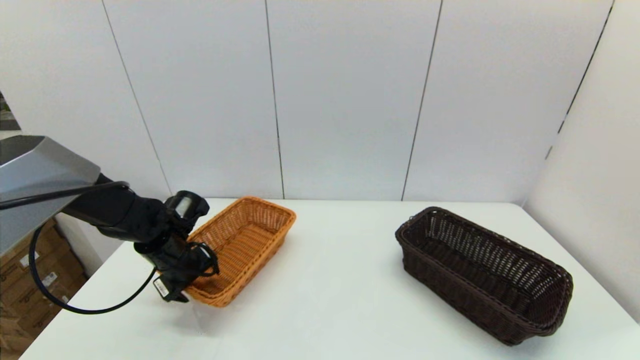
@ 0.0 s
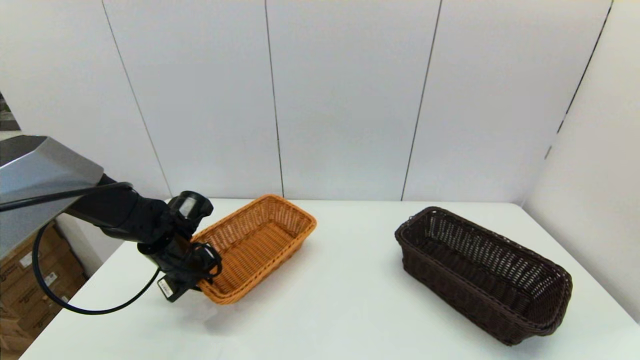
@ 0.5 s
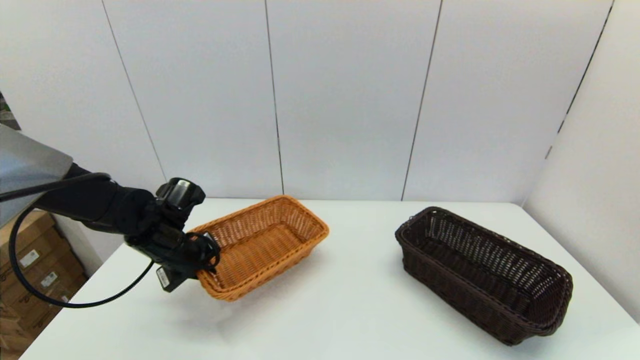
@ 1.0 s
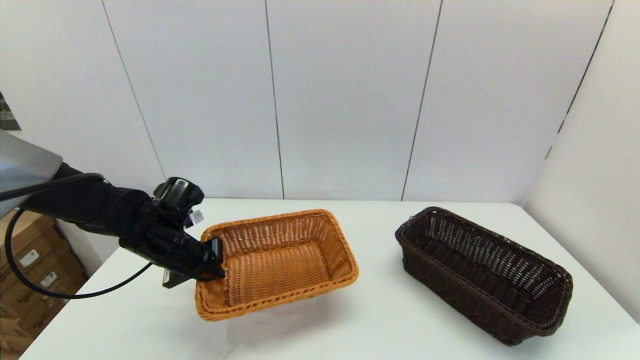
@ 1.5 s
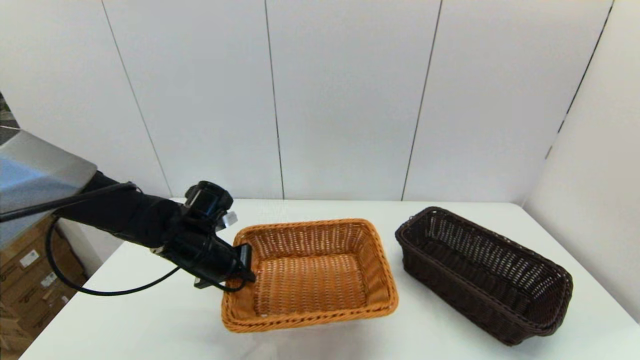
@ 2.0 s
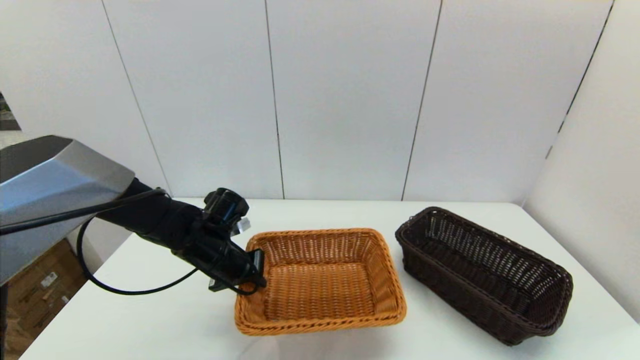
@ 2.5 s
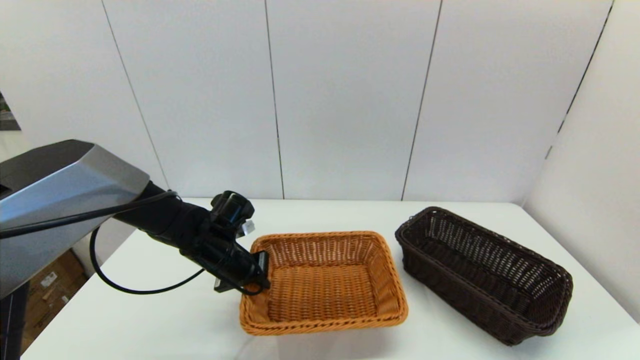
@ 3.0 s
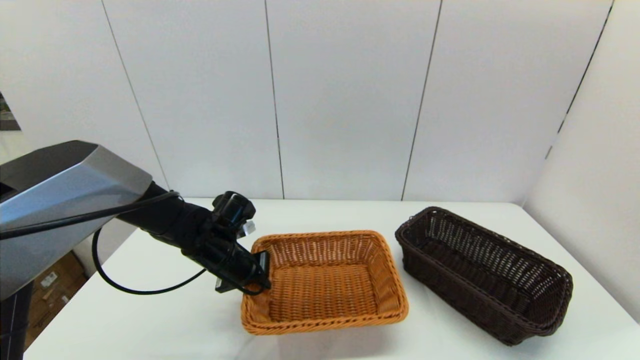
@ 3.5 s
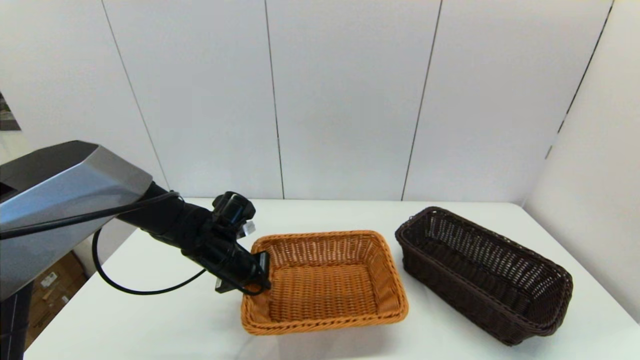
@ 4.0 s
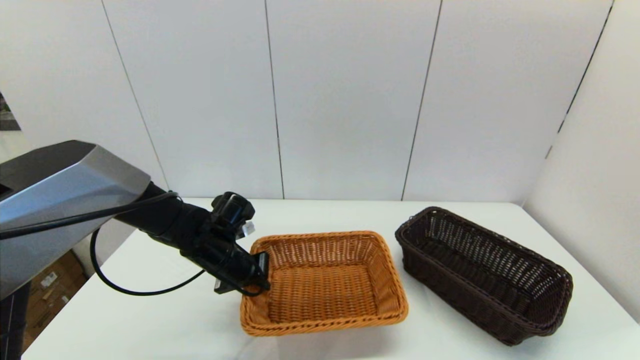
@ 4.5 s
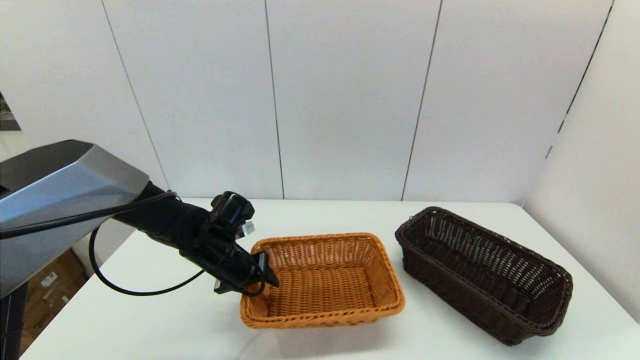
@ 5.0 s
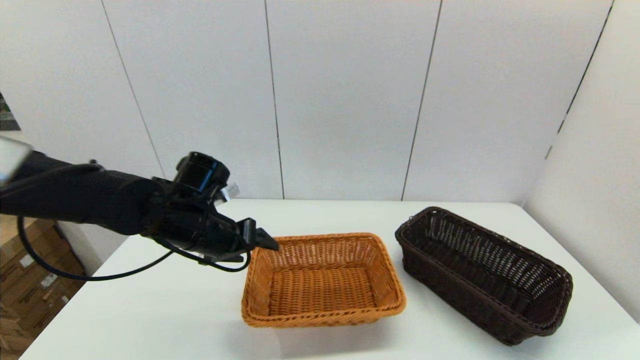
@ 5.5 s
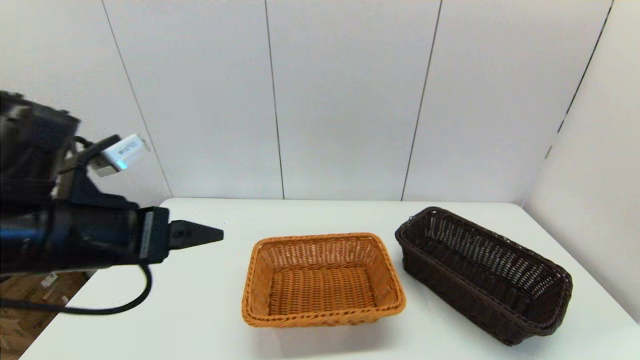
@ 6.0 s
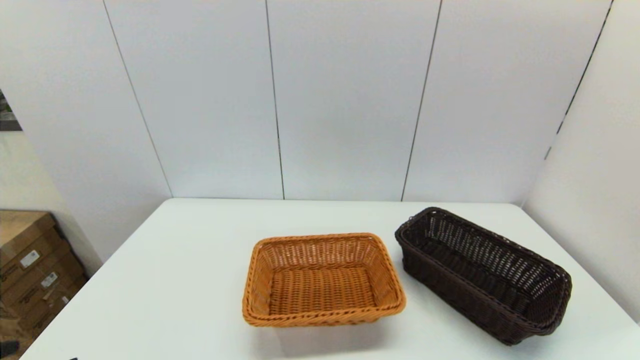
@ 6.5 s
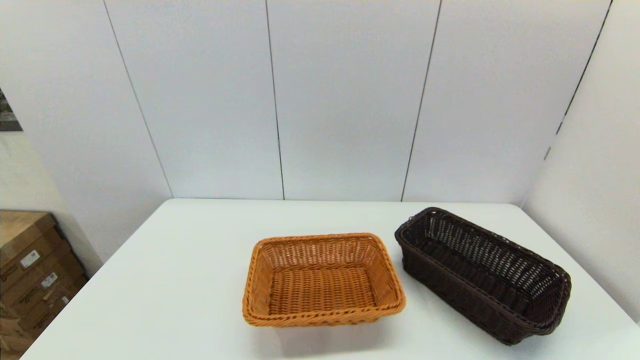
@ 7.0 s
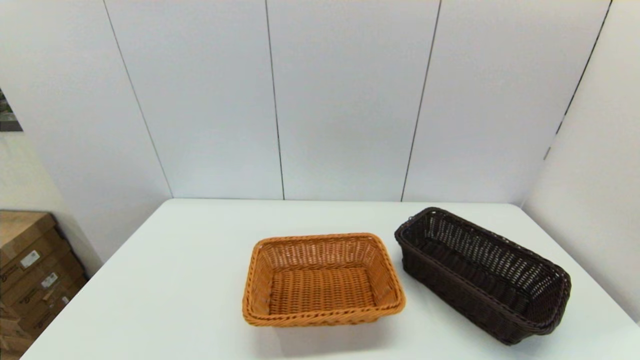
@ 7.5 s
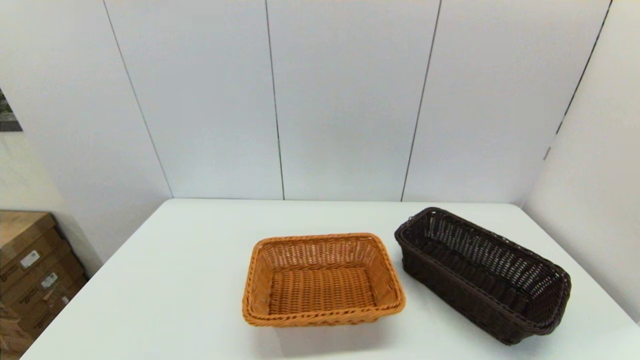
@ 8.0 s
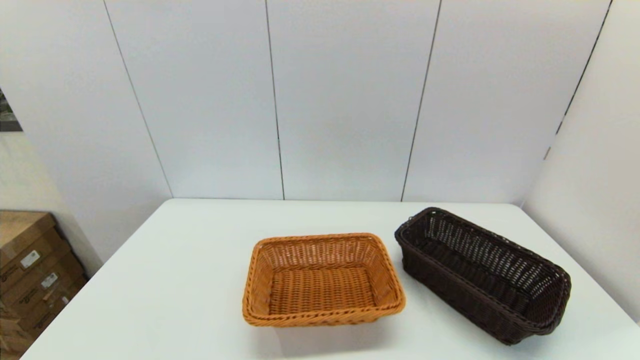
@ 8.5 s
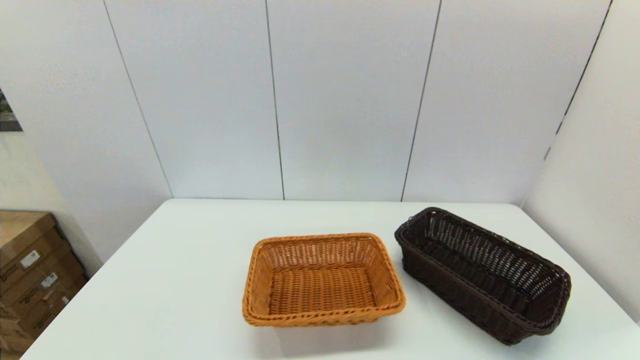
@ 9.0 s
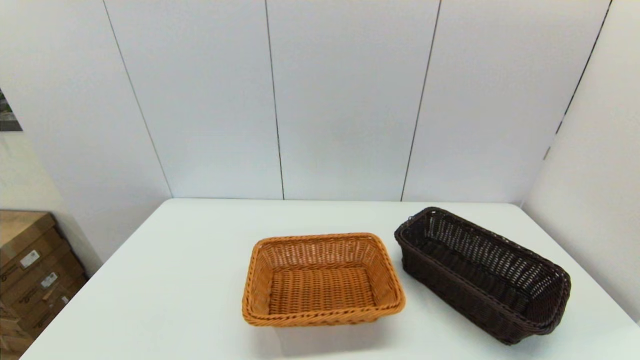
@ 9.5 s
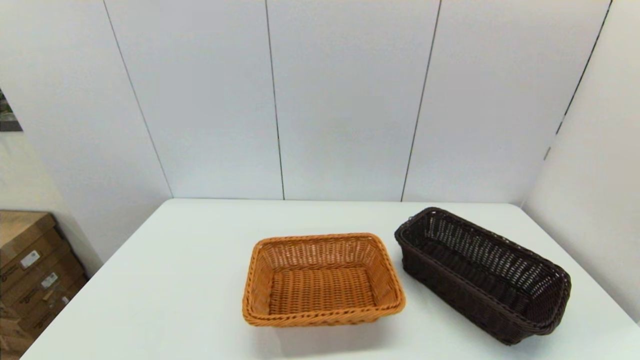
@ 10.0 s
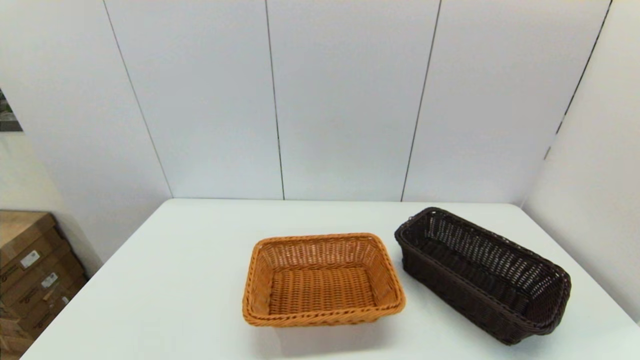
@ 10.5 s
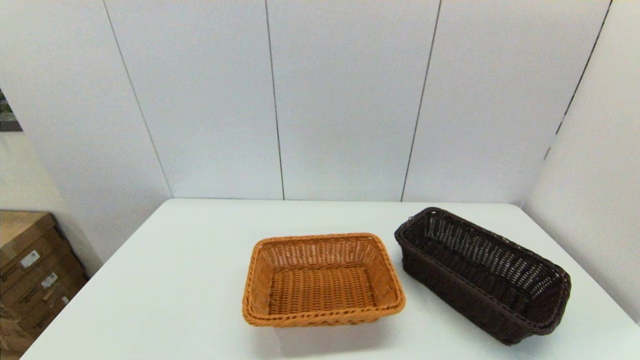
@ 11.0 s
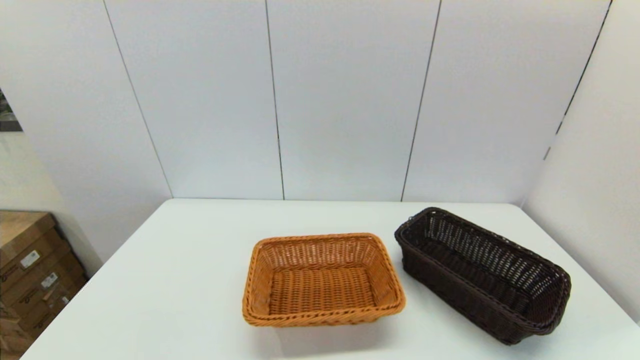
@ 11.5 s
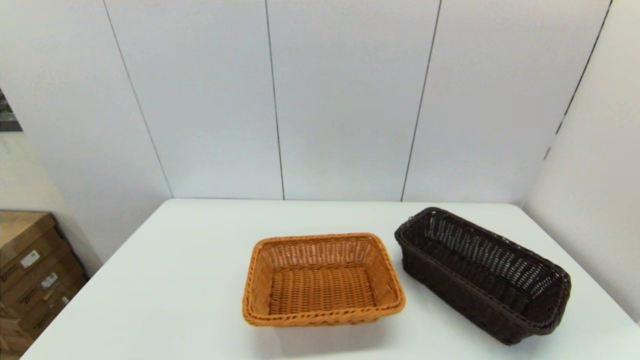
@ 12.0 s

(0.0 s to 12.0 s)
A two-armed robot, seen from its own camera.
Task of the whole recording: stack a basket on top of another basket.
Step, 0.5 s - 5.5 s: Place the light basket on the middle of the table with the left gripper.
0.0 s - 2.0 s: The left gripper shifts about 5 cm to the right, and closes.
2.0 s - 4.0 s: The grippers stay close to where they were, moving slightly.
4.0 s - 6.0 s: The left gripper travels upward and backward by about 25 cm, and opens.
6.0 s - 8.0 s: The left gripper goes approximately 25 cm backward.

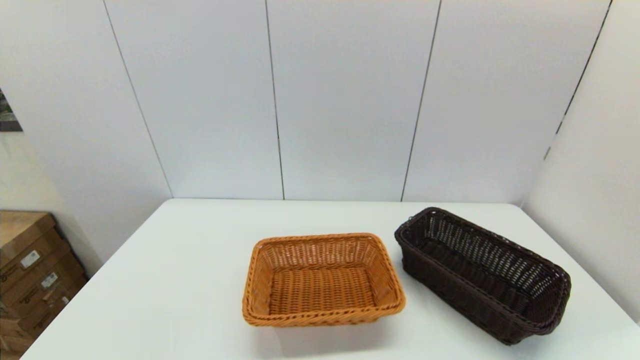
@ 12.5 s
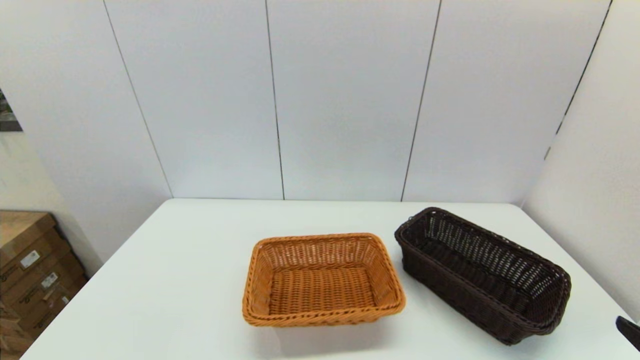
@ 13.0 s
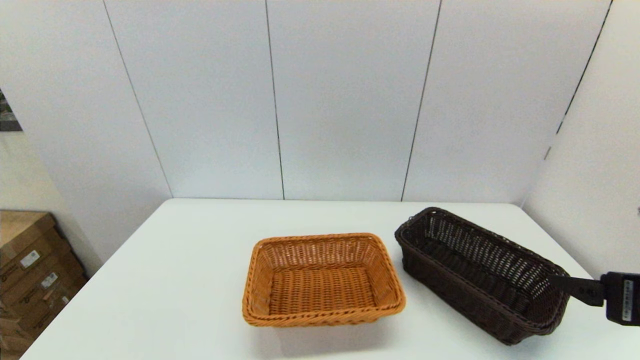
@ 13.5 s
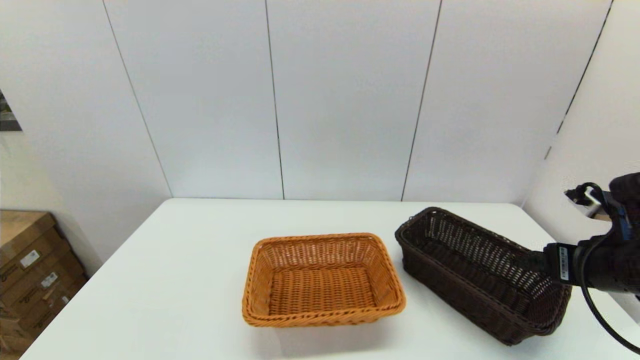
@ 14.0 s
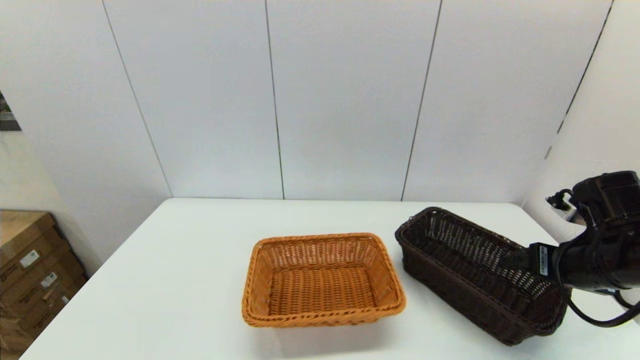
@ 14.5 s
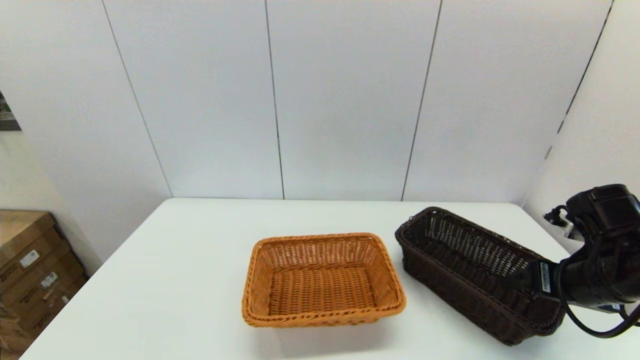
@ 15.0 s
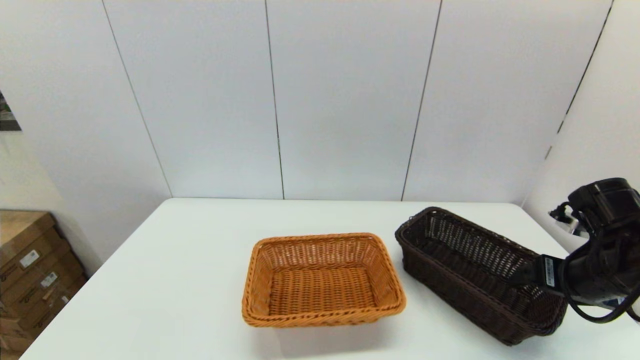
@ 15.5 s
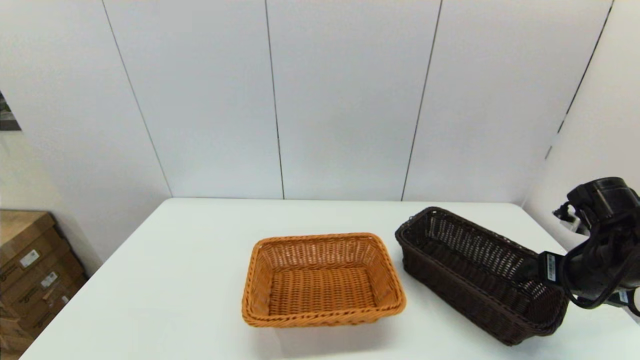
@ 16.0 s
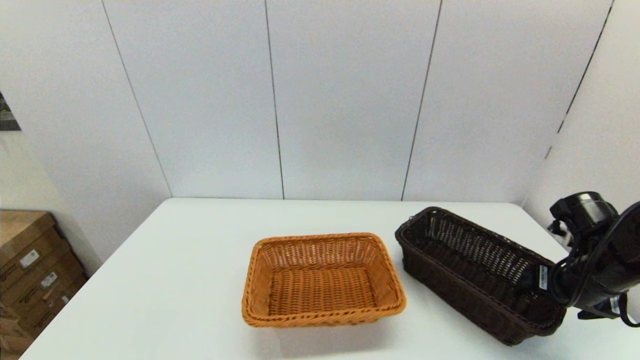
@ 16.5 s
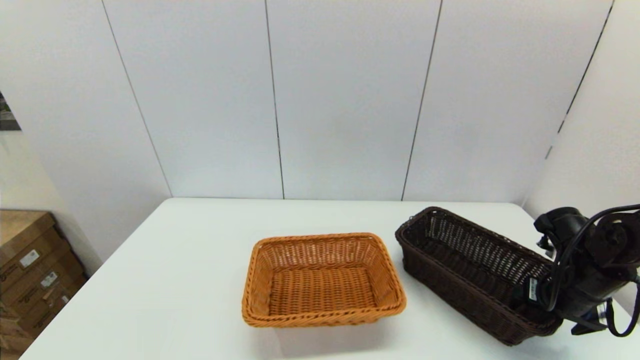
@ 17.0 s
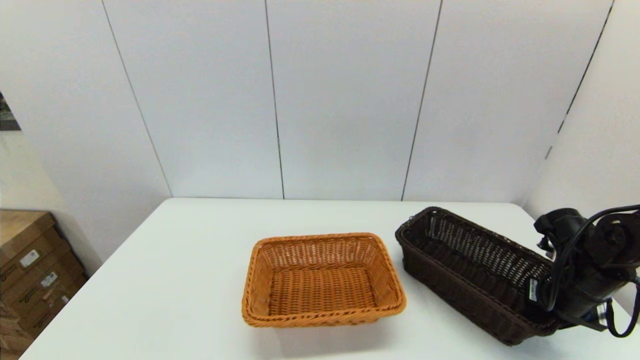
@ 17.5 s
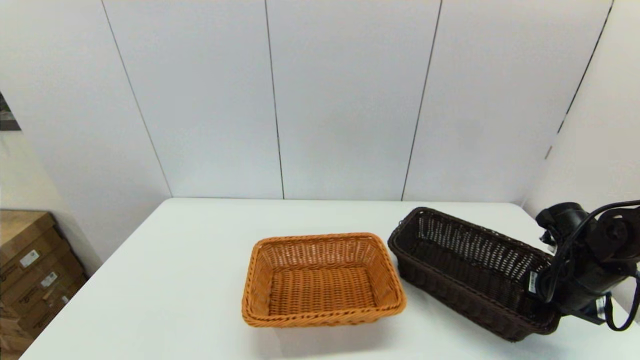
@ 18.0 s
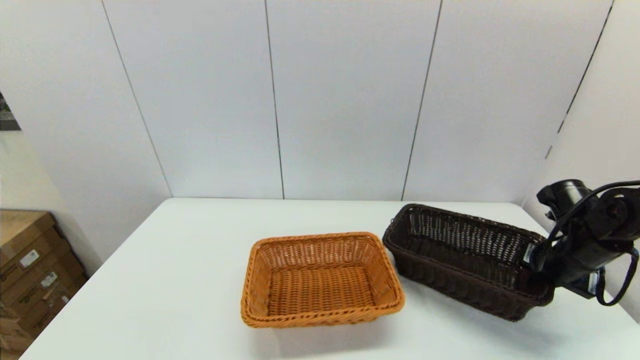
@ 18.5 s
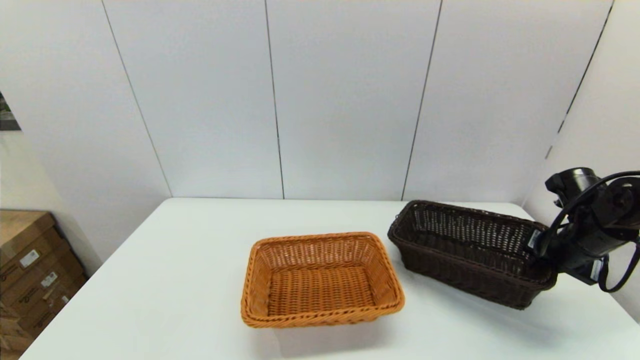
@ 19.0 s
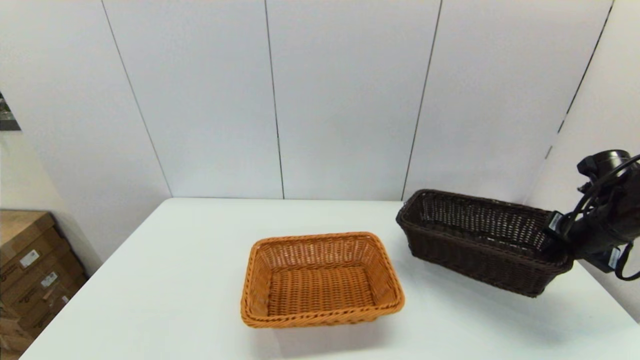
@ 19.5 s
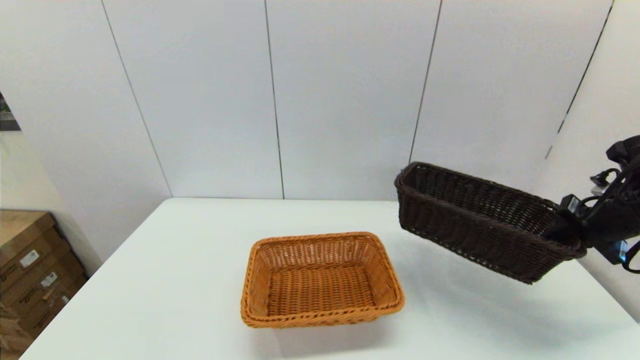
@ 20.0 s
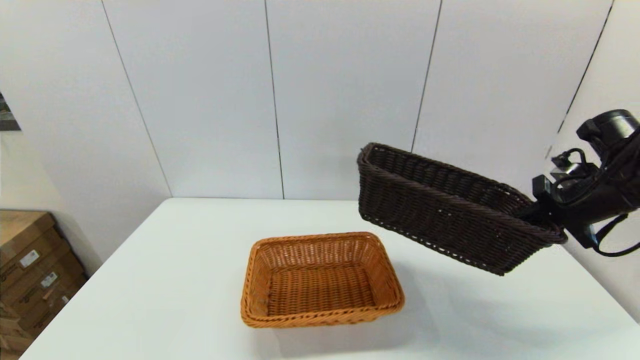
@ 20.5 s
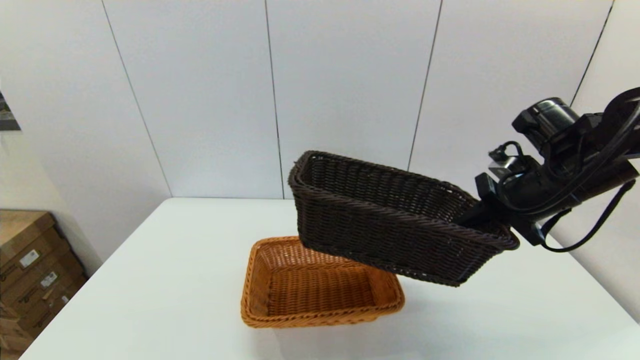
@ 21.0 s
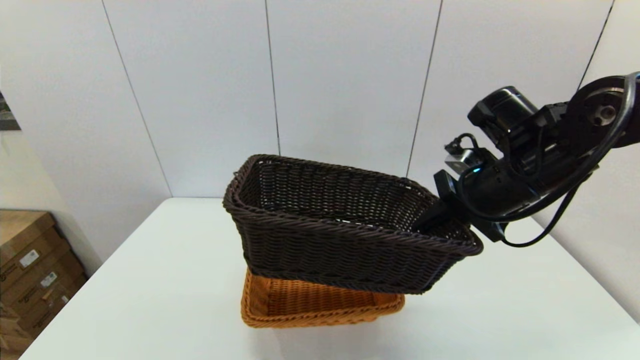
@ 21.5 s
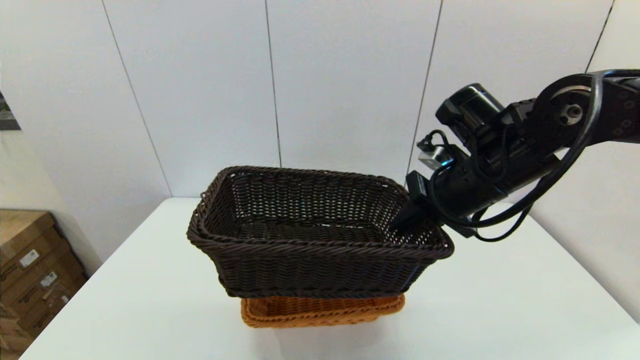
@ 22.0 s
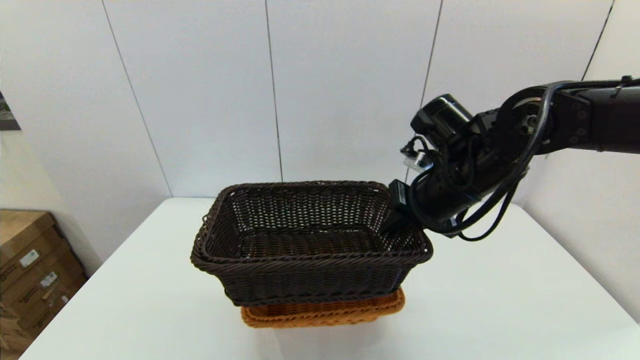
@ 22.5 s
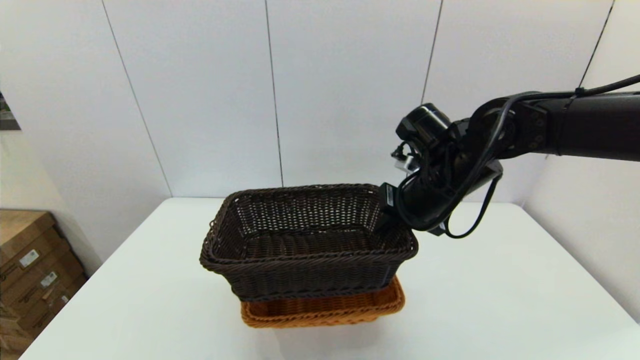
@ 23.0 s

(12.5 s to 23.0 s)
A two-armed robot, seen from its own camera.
Task of the whole recording: stack a basket on top of another basket.
Step, 12.5 s - 18.0 s: Grasp the dark basket with the right gripper.
12.5 s - 14.5 s: The right gripper heads forward, covering roughly 25 cm.
14.5 s - 16.5 s: The right gripper moves some 5 cm.
16.5 s - 19.0 s: The right gripper travels forward by some 5 cm, and closes up.
19.0 s - 21.0 s: The right gripper travels to the left and upward by about 15 cm.
21.0 s - 23.0 s: The right gripper moves to the left, roughly 10 cm.
